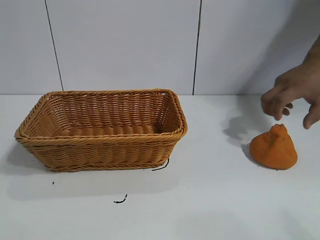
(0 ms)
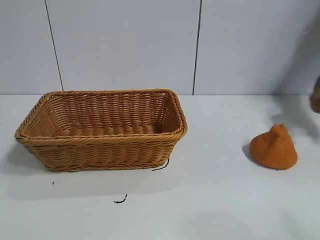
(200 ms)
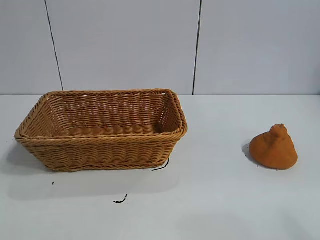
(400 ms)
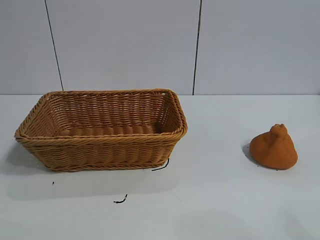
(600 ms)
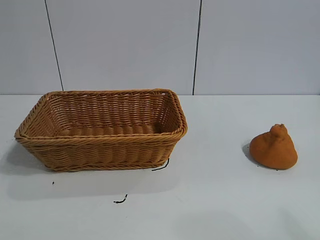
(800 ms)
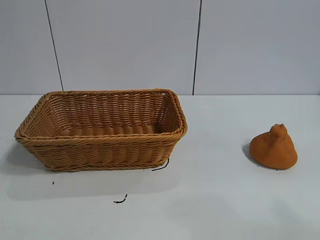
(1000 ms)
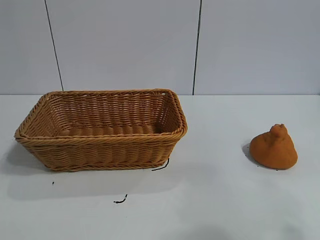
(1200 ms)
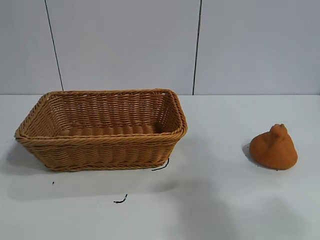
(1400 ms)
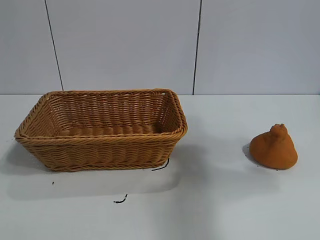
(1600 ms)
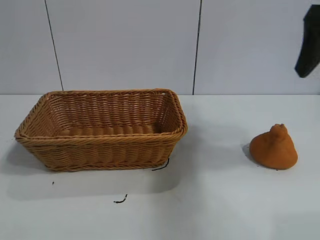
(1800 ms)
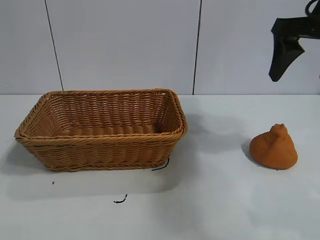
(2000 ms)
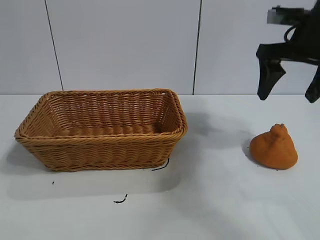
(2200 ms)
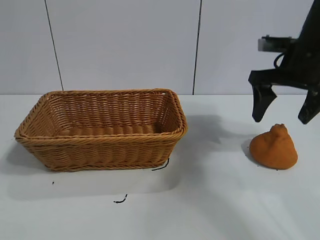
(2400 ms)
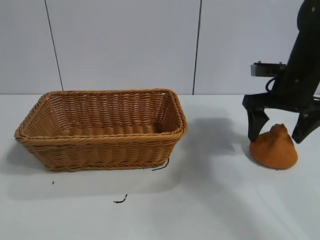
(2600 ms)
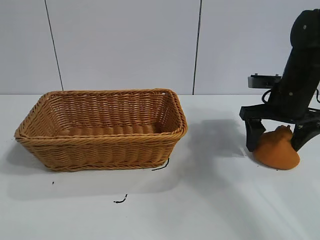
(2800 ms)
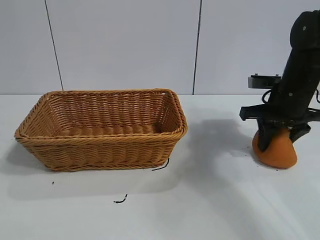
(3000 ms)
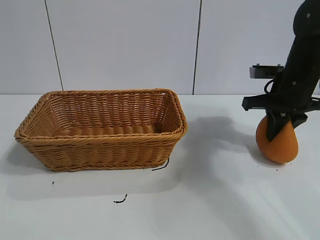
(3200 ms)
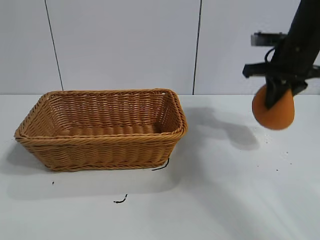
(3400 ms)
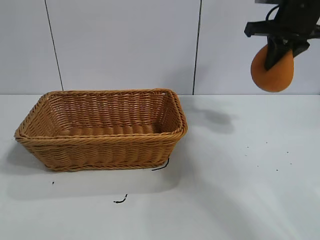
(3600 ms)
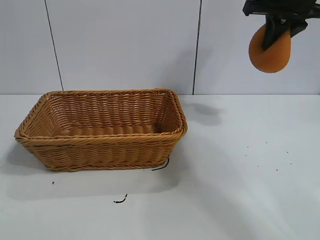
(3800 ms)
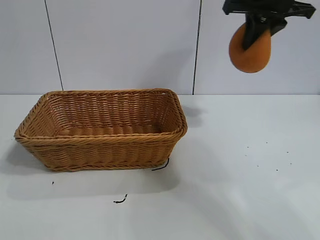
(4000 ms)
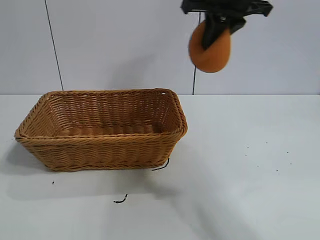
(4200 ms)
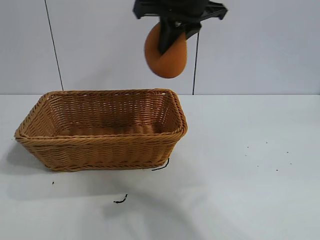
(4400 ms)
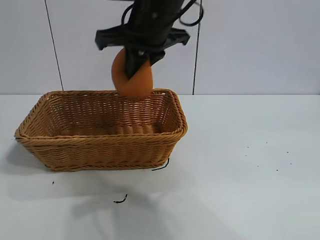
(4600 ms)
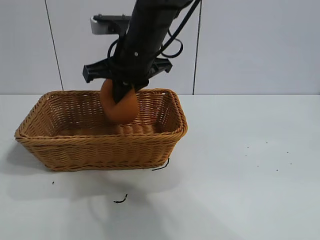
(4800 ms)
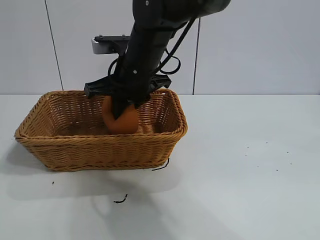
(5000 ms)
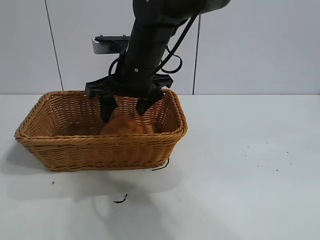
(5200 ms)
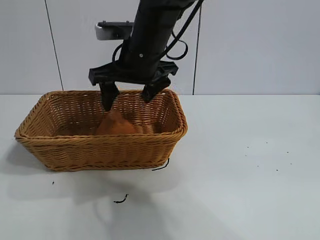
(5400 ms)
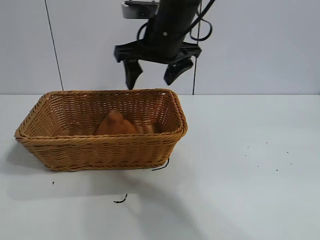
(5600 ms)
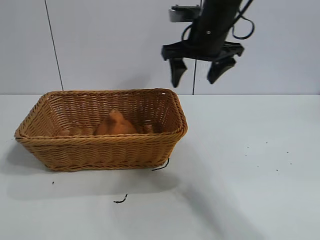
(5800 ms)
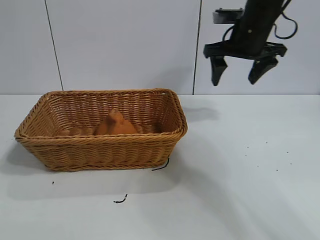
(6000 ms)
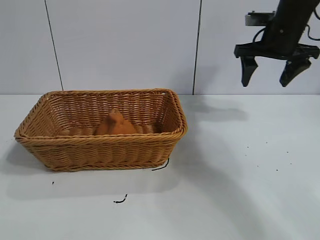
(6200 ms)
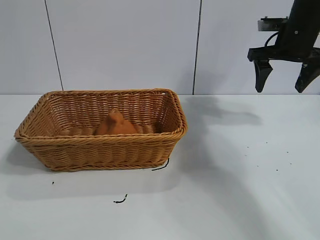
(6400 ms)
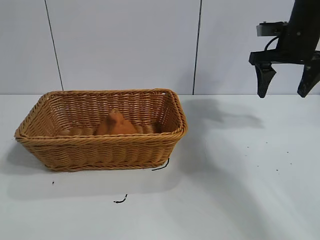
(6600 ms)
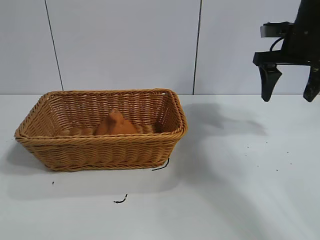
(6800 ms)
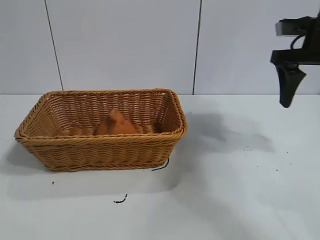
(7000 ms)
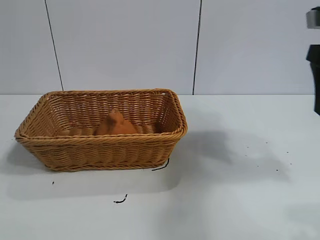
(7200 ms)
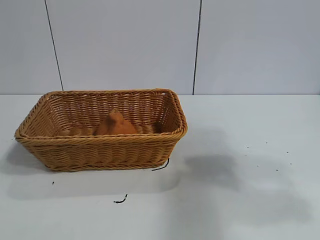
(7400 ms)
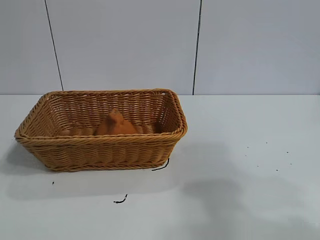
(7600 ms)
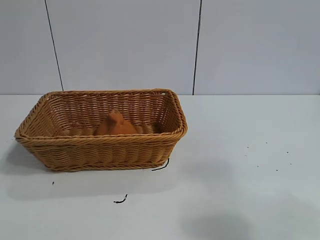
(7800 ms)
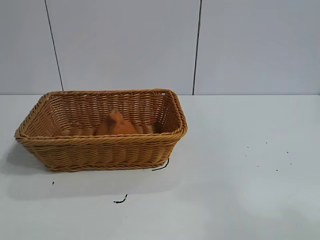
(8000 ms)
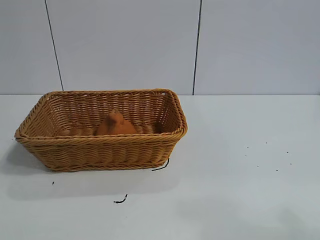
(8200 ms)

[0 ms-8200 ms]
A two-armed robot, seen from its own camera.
Task of the whole recording: pick up the orange and put it into the basket.
Step, 1000 ms to 3000 ms: Grasp the orange with right gripper.
Step, 3400 ms to 5200 ms: Place the orange in the basket with right gripper.

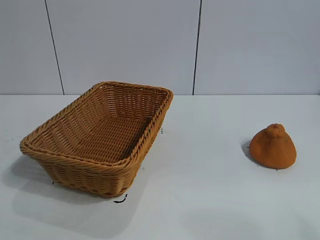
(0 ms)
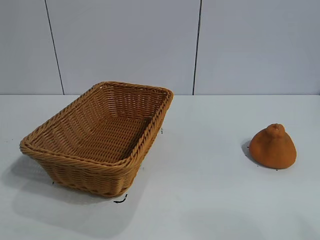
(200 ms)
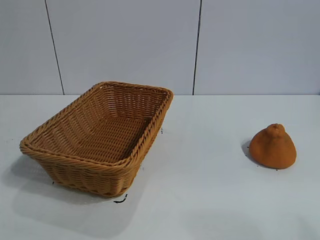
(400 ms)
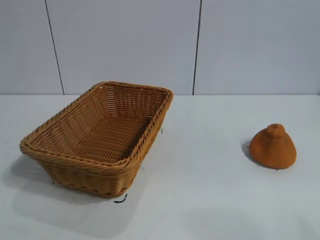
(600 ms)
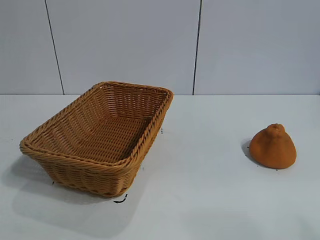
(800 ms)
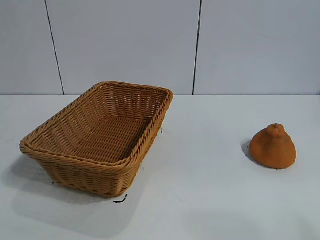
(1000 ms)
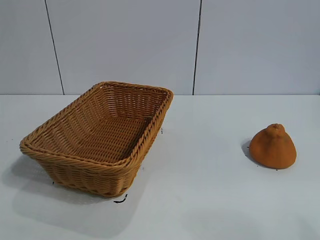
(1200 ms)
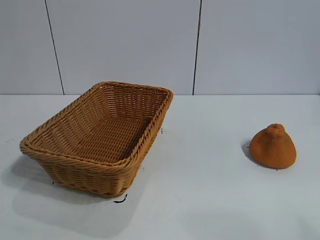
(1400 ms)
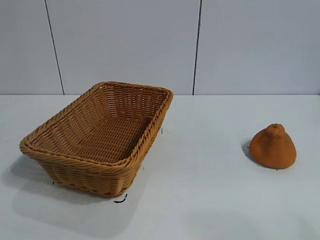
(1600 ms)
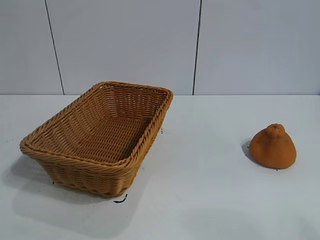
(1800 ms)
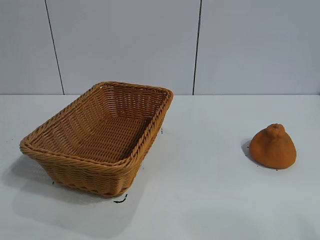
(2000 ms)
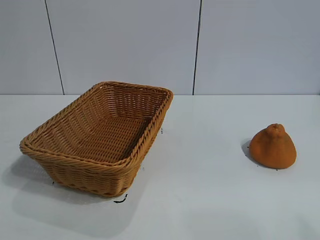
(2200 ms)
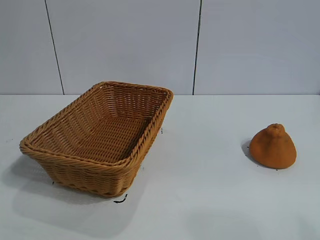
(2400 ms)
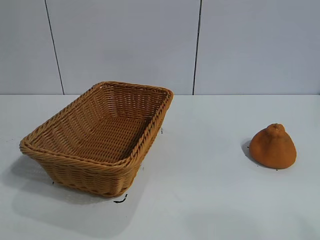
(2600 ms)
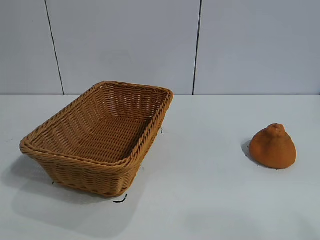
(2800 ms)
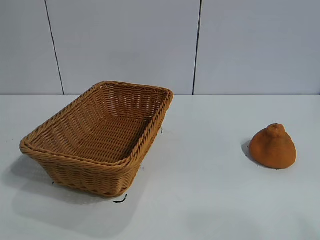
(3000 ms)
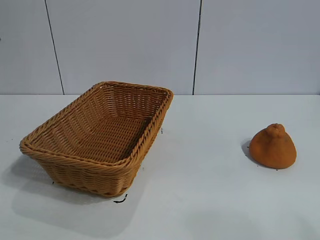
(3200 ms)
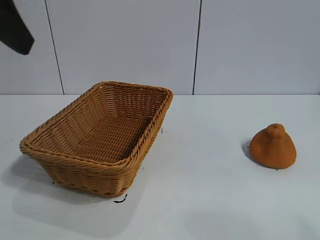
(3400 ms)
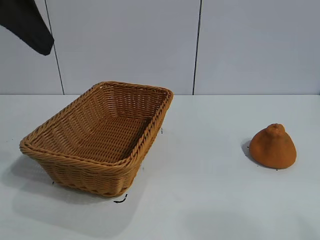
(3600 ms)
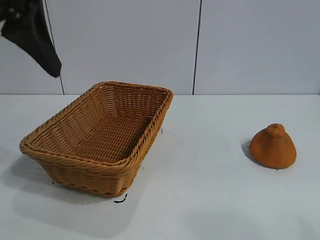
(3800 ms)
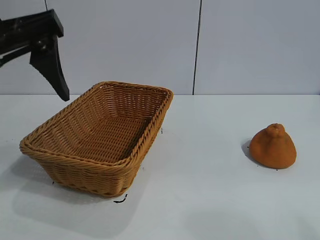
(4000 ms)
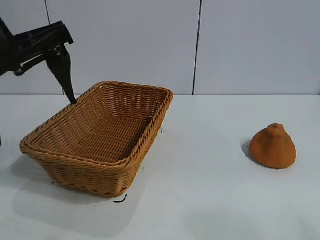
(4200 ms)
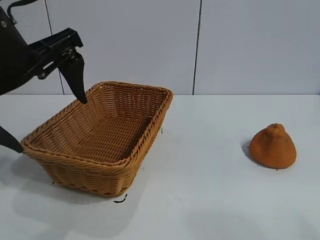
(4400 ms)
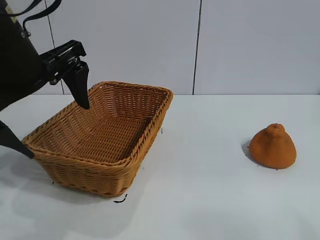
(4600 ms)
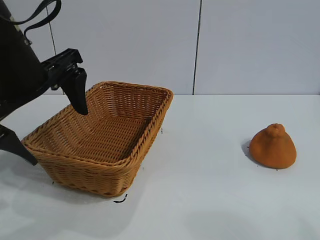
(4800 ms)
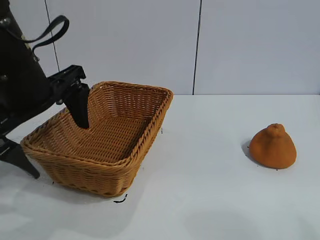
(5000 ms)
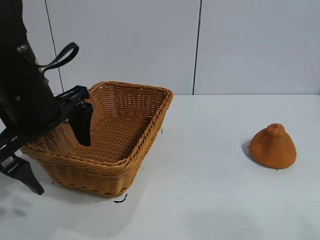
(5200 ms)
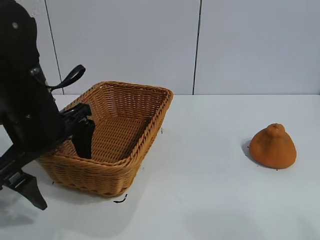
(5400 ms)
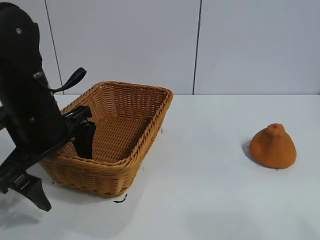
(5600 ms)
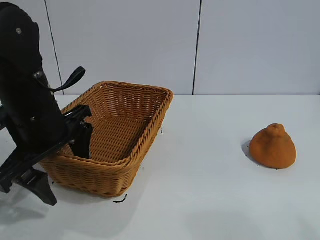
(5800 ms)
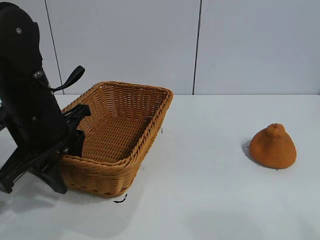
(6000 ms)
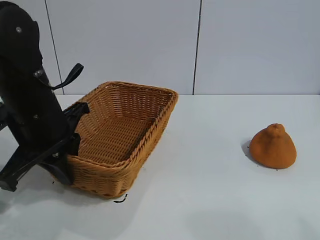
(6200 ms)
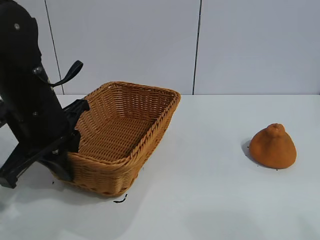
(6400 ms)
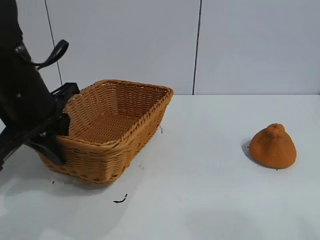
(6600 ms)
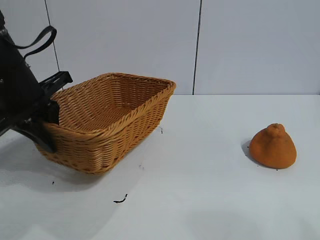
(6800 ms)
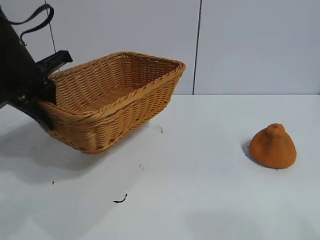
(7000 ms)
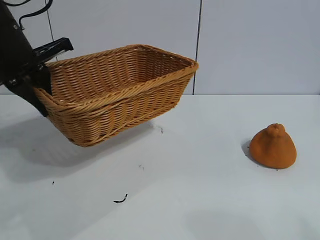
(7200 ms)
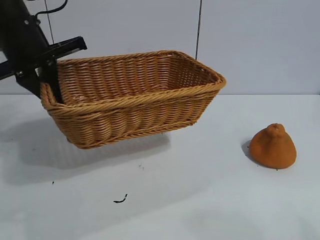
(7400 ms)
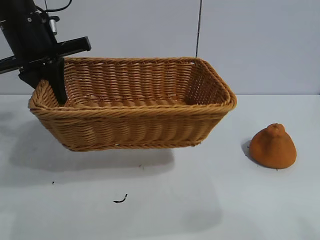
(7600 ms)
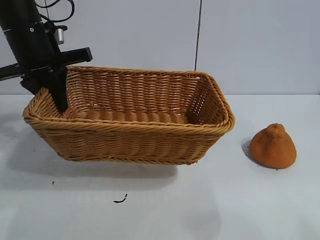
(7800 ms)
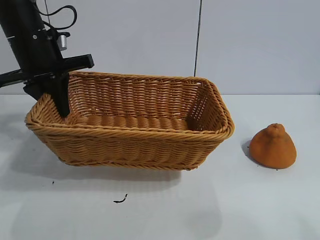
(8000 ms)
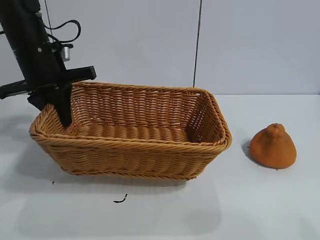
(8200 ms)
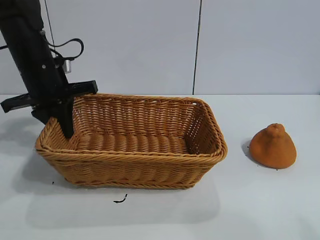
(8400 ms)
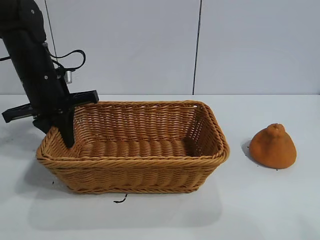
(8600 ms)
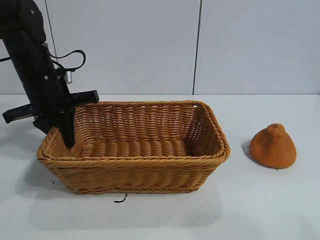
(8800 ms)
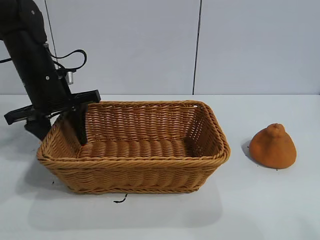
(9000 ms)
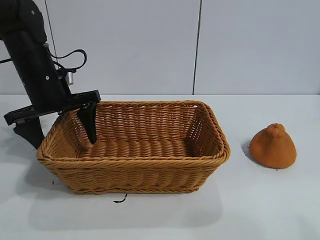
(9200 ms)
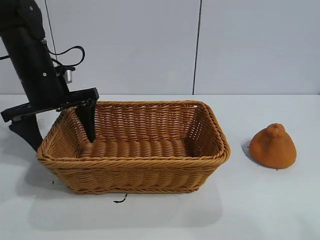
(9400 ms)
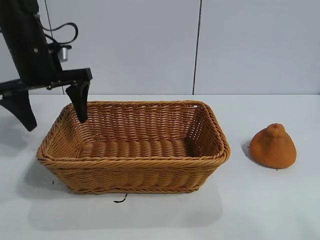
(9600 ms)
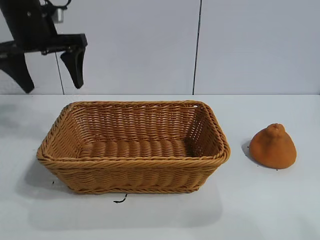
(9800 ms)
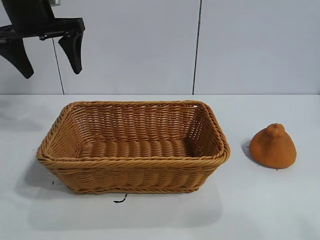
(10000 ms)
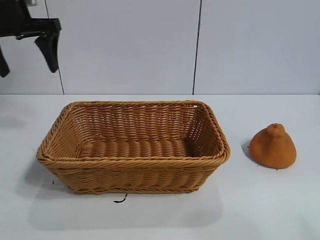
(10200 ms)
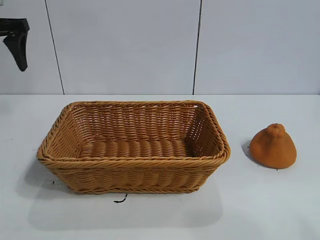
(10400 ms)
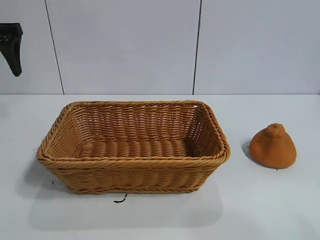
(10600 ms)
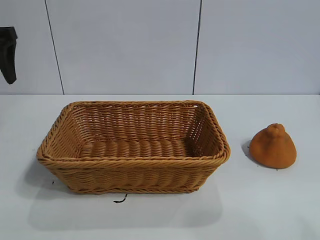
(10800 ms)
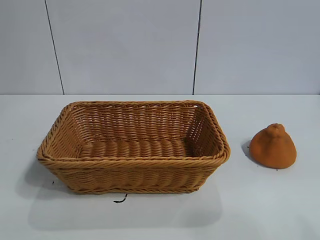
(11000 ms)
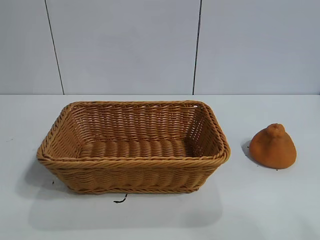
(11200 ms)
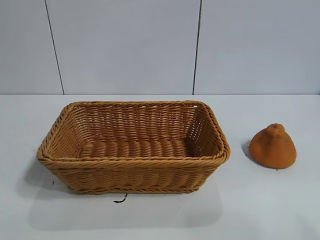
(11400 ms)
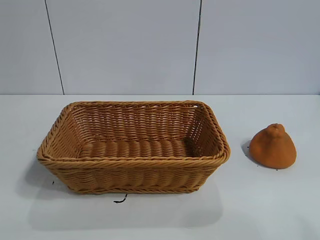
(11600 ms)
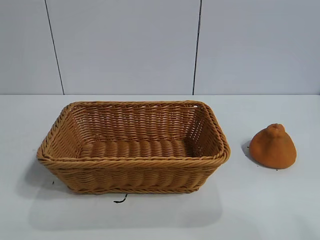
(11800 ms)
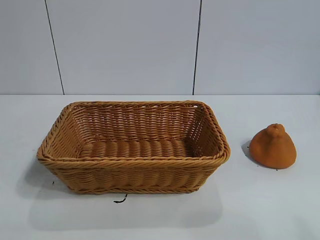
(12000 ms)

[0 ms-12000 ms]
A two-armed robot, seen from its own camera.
Task of the whole recording: pick up the orange and put it into the basket.
Step, 2200 ms to 6200 ms: Grasp the basket with left gripper.
Step, 6600 ms to 9200 ms: Place the basket in the center of view with left gripper.

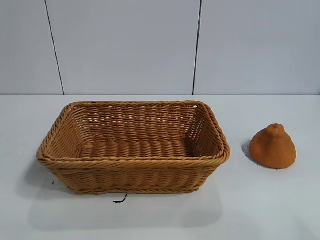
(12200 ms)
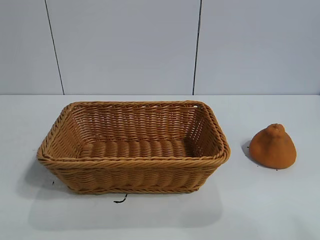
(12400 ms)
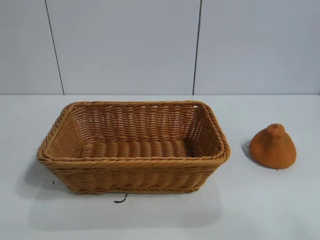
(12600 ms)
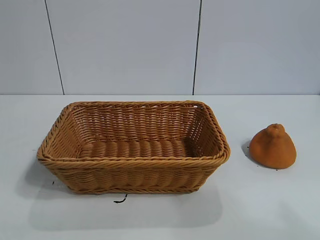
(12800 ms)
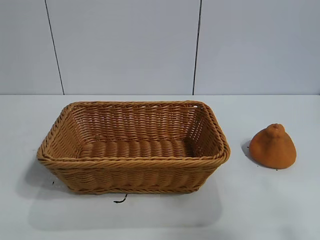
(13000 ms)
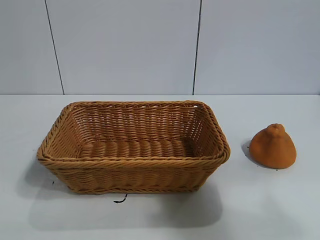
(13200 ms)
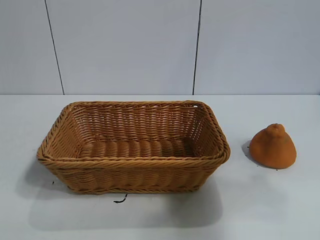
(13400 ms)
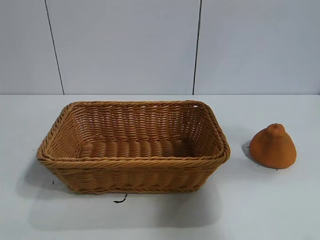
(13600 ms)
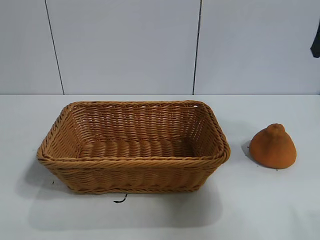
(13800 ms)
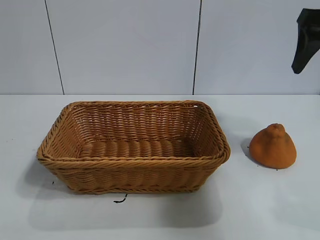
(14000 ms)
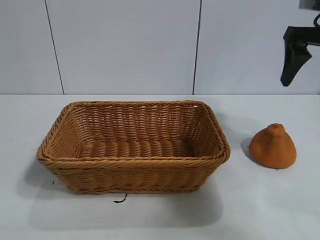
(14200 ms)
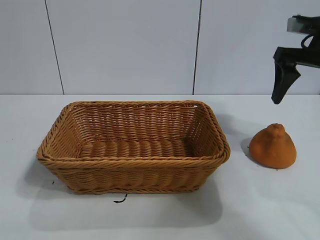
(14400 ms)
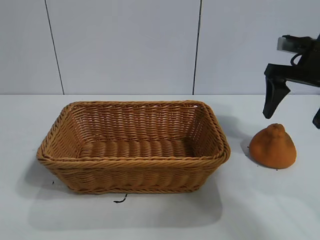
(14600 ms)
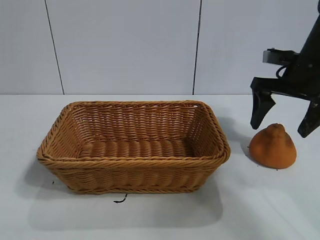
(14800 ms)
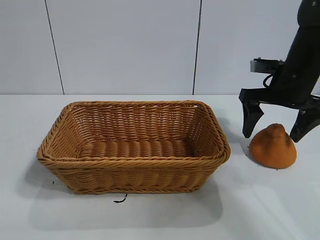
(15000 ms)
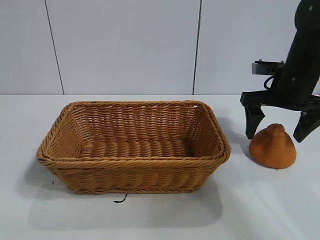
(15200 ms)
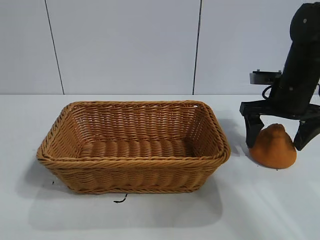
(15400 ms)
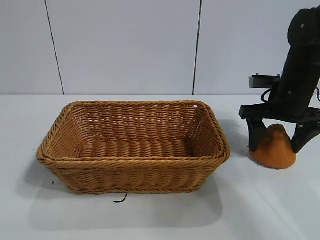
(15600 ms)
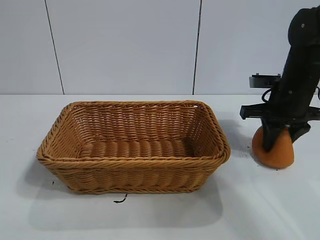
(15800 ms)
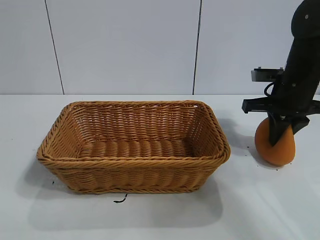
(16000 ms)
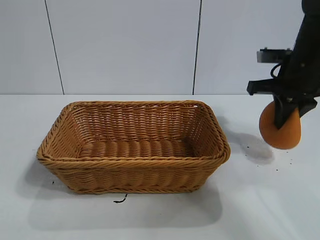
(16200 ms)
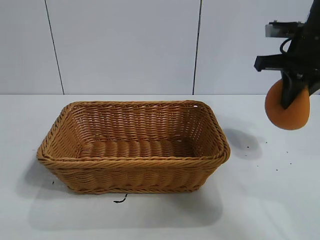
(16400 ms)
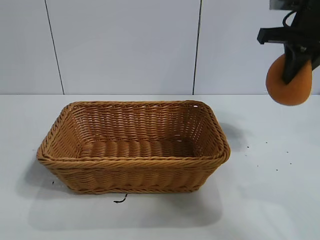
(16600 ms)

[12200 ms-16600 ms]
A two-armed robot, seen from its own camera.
Task of the whole recording: pick up the orange and put it into the basket.
Step, 12200 ms to 15800 ms: Grasp the orange with right gripper.
